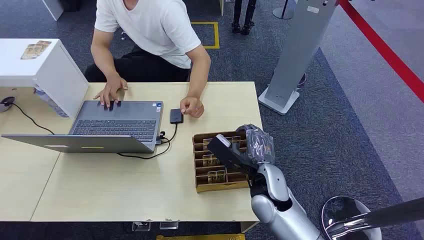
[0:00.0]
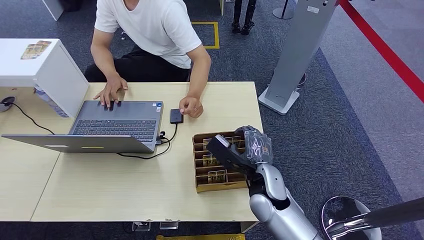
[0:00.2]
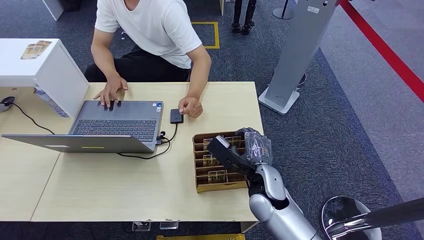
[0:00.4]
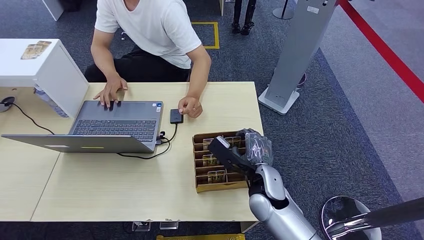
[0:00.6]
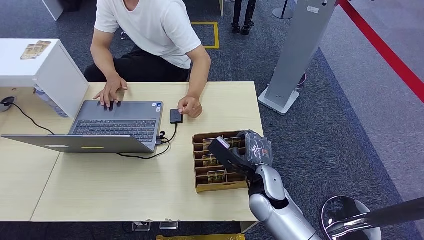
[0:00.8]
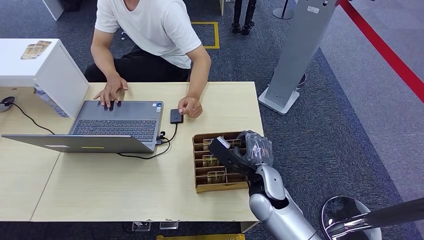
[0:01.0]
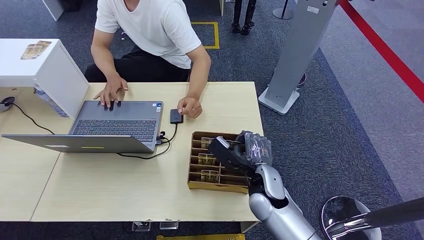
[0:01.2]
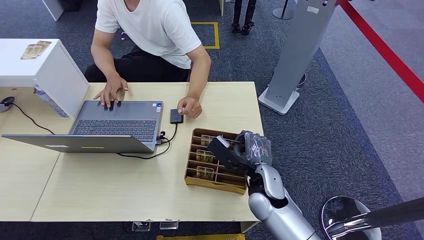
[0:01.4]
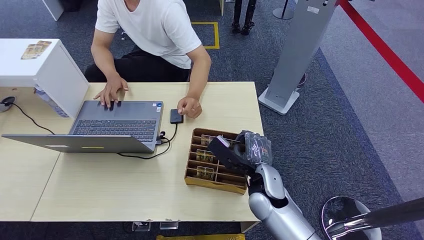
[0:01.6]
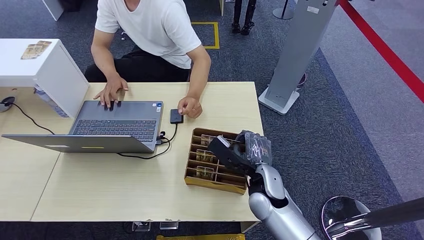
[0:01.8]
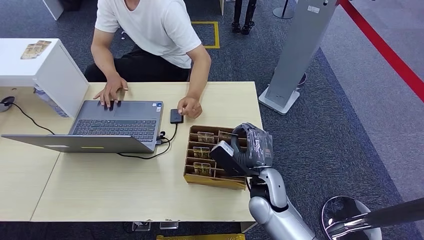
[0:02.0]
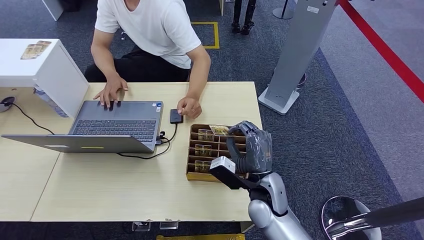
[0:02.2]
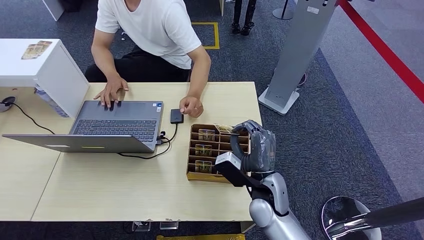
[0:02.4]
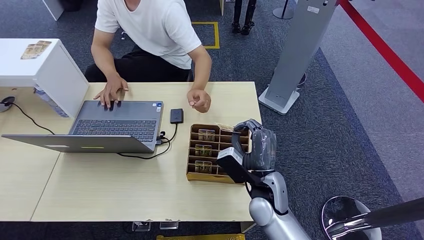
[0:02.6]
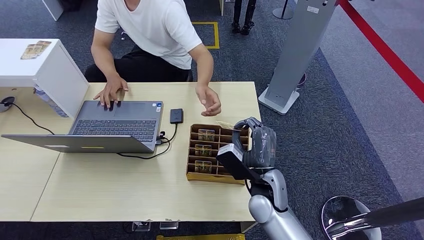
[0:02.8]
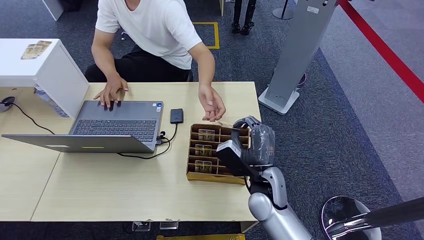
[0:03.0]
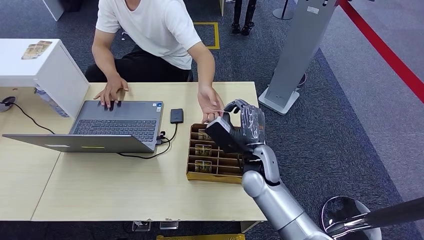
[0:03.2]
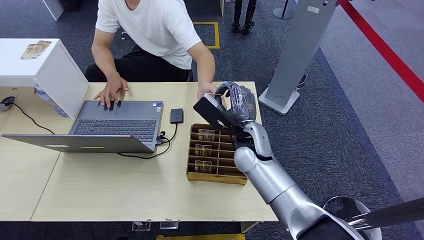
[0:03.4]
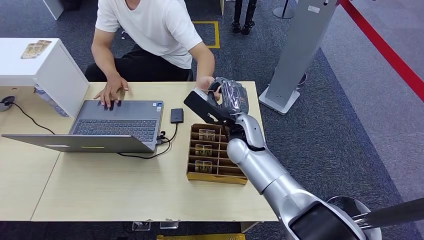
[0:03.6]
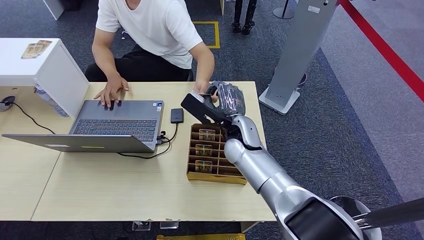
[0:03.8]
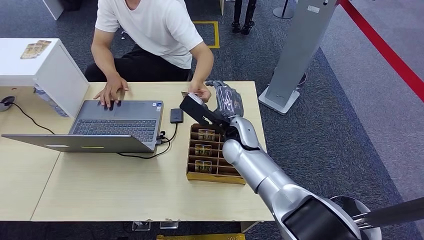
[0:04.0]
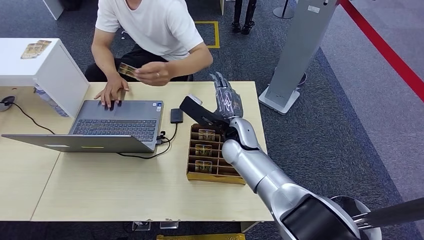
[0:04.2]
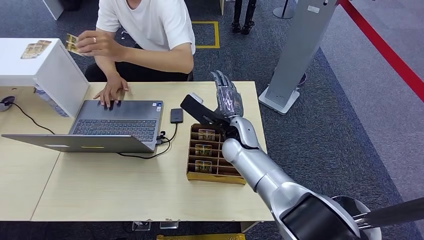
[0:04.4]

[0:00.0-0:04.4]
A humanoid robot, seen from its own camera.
Step, 0:00.0 to 0:01.8: Pick up the room card from the card holder.
Step, 0:02.0 to 0:04.4: Hand the room card to the target.
0:03.0 to 0:04.4: The right hand moves forward and to the left, roughly 15 cm.
